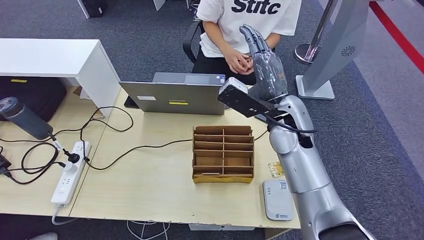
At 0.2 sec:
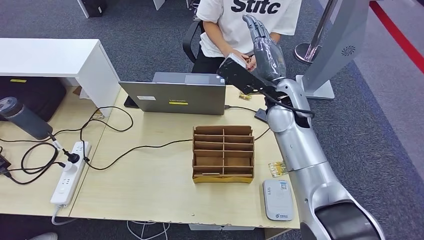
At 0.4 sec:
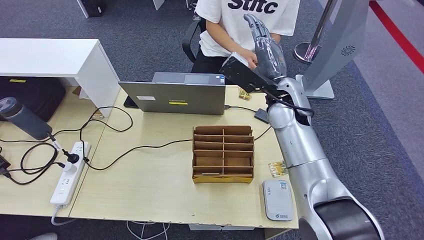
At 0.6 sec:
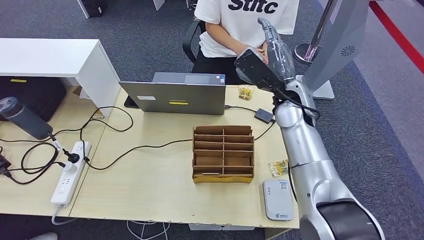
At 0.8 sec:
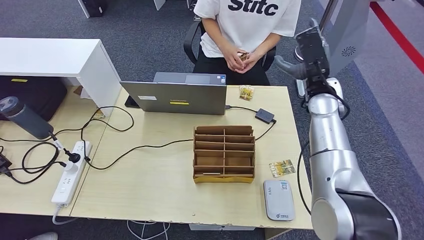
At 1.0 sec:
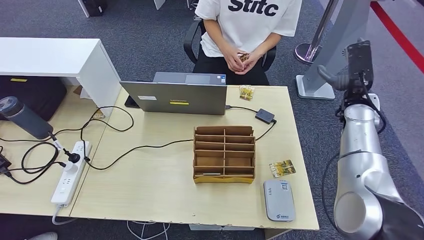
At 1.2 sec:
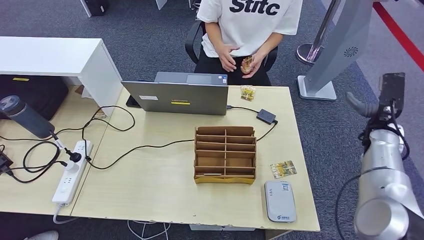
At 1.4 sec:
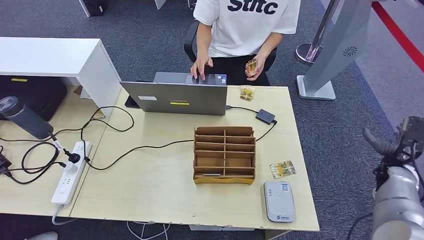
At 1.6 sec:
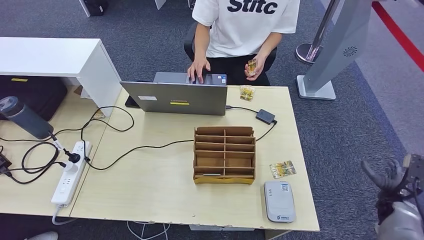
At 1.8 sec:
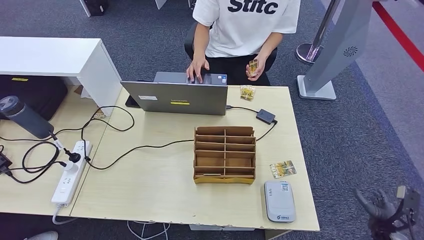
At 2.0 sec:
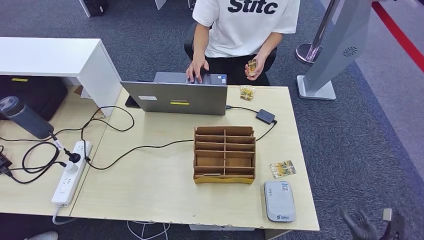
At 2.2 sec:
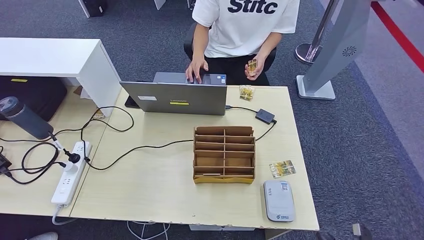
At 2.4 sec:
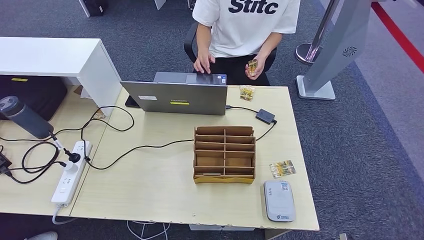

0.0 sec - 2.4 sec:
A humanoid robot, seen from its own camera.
Step, 0.0 sec - 2.4 sec: Hand the room key to the person.
1.2 sec - 2.4 sec: The right hand goes about 40 cm backward and downward.
